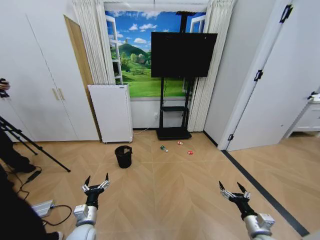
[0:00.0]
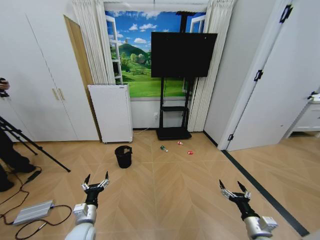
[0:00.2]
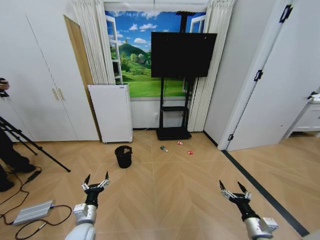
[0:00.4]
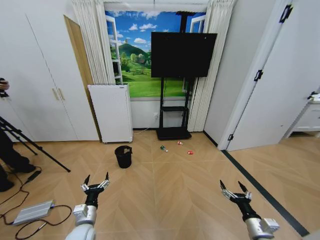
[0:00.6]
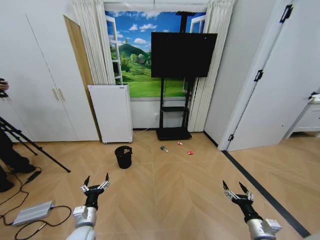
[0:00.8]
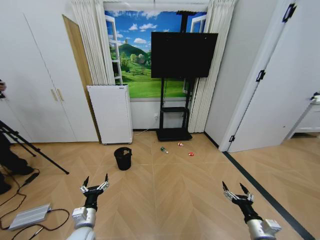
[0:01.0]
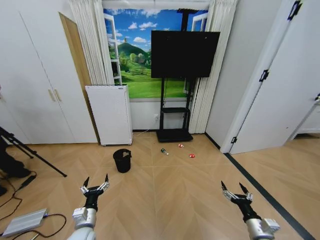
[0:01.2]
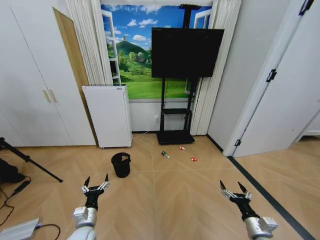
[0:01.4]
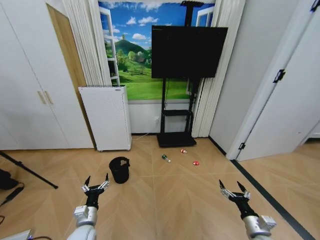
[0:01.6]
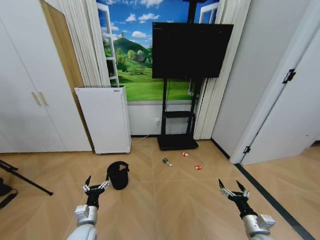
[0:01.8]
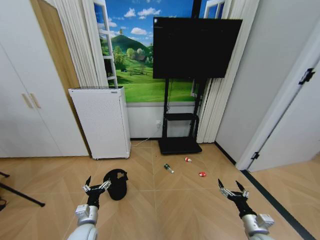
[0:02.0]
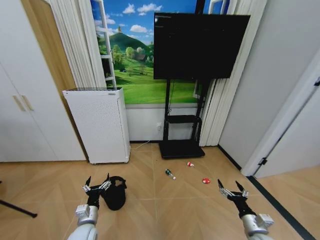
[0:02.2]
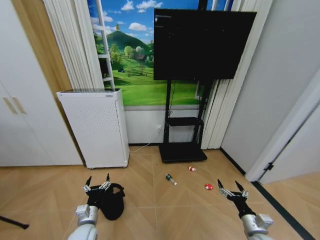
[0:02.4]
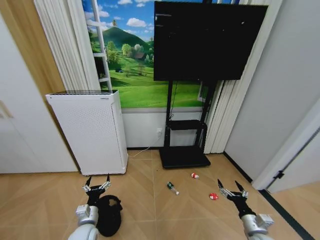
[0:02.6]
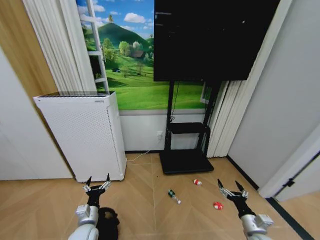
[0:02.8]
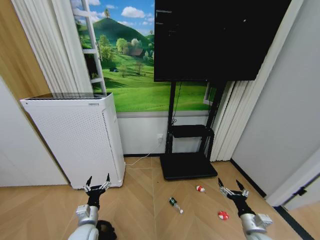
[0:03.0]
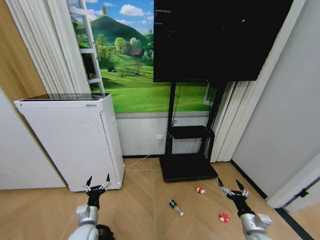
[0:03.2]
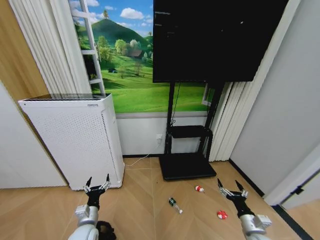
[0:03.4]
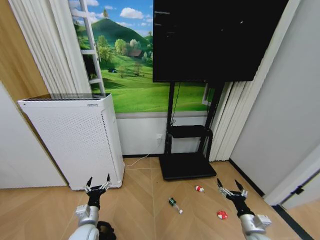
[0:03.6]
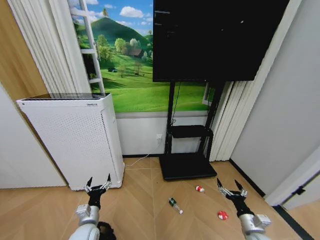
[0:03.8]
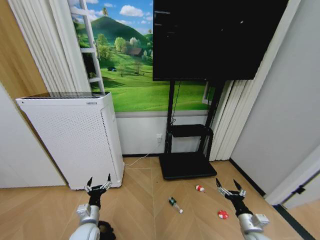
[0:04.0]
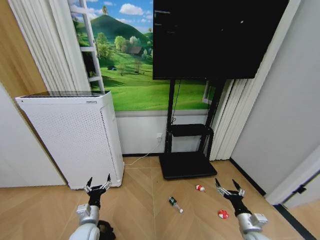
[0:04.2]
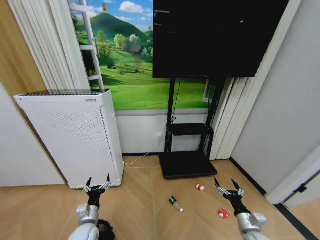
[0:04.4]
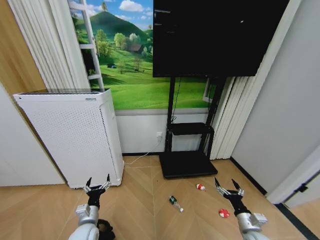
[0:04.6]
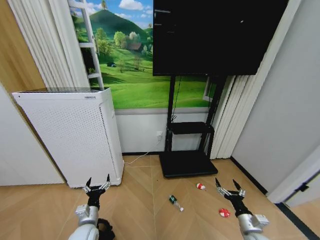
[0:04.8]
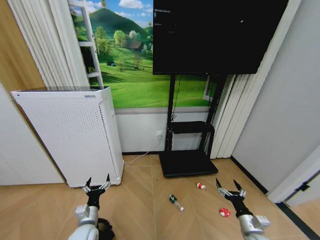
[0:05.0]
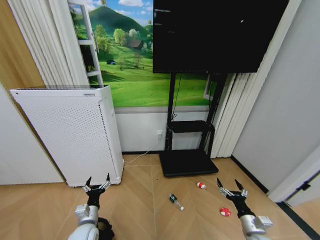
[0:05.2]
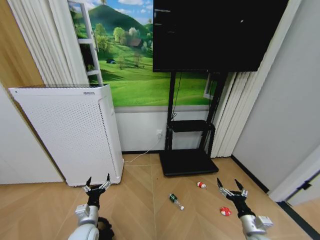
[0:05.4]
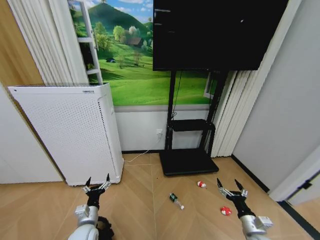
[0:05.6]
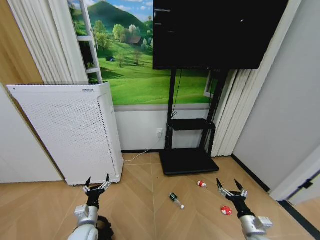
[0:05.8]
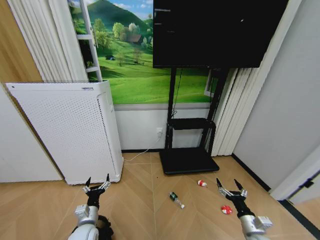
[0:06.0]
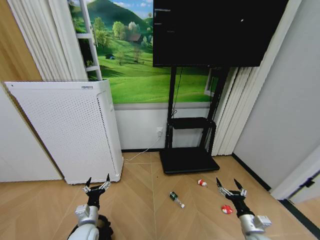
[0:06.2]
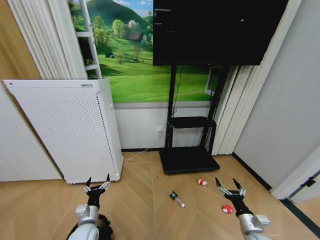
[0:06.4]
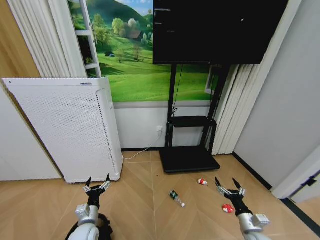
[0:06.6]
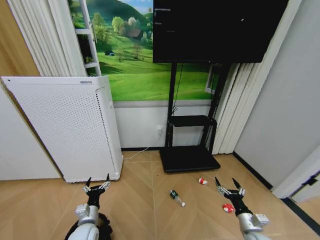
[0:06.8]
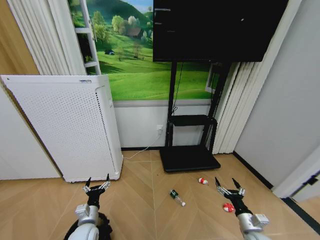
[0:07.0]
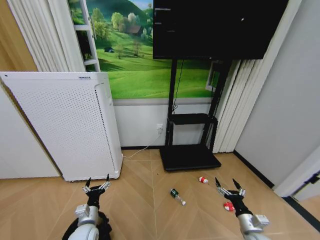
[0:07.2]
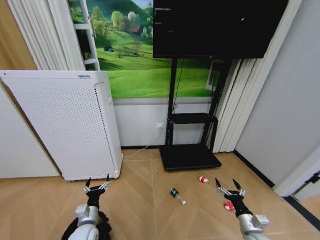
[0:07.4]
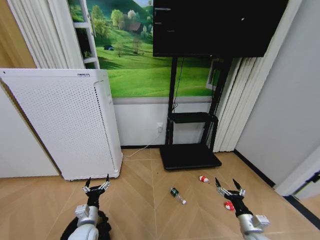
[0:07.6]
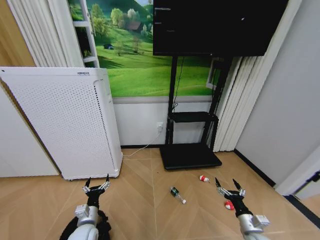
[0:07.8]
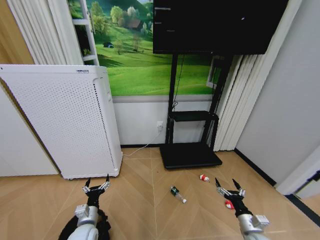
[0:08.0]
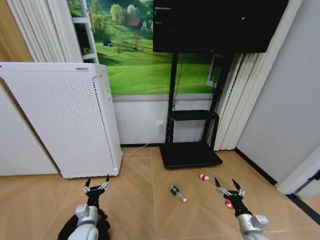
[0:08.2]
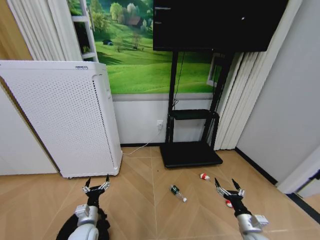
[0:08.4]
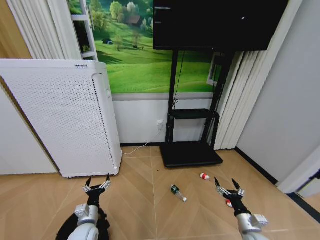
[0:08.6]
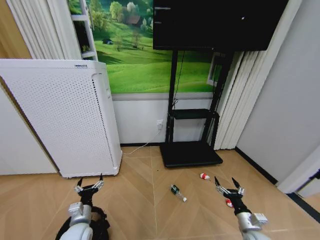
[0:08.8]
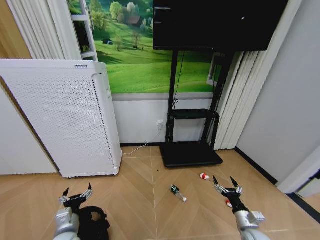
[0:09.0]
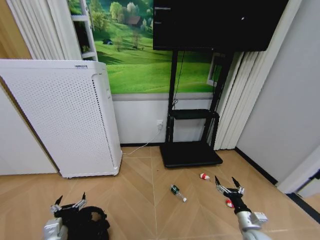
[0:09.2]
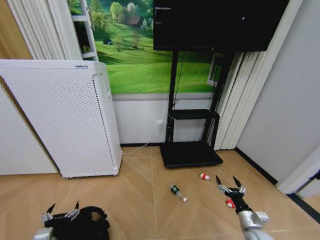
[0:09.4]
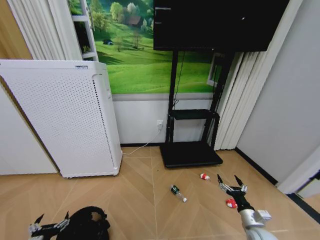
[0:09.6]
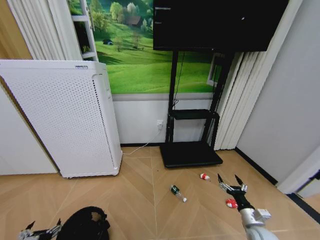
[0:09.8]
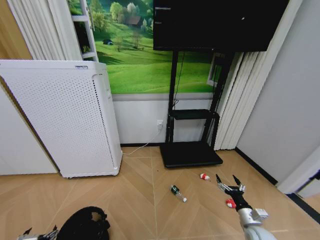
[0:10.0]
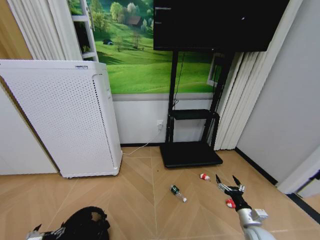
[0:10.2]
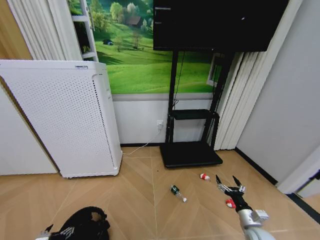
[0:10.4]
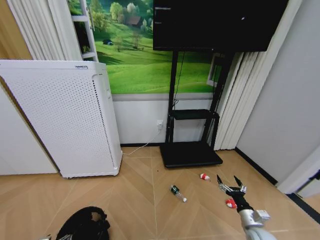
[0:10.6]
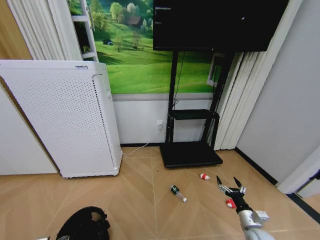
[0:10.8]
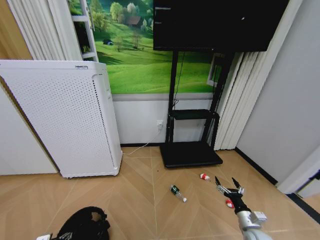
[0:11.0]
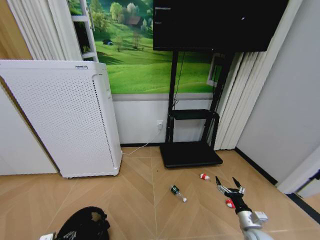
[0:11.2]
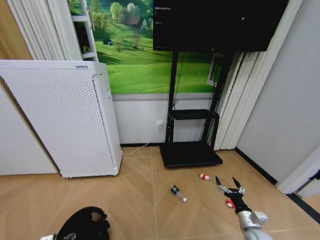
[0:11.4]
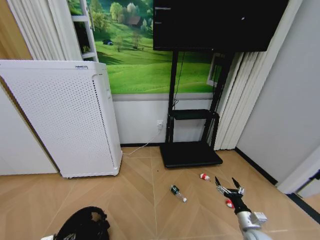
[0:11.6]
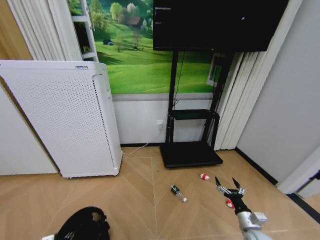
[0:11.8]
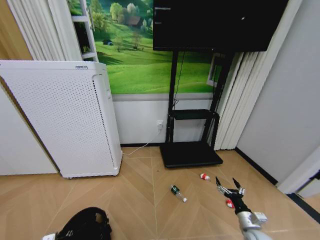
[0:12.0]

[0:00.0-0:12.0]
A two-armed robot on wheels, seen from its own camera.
Task of the whole recording: Pick up the trash bin and place the garbage on the floor into it.
0:03.0 to 0:07.6: Both grippers stay put.
0:07.6 to 0:09.0: The left gripper shifts by some 5 cm.
0:09.0 to 0:10.4: The left gripper goes roughly 10 cm to the left and backward.

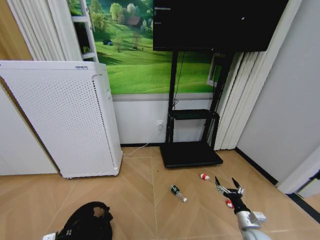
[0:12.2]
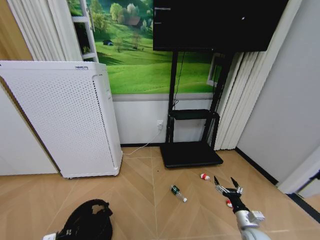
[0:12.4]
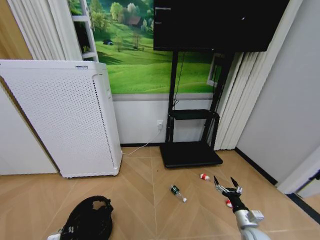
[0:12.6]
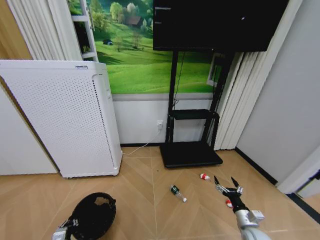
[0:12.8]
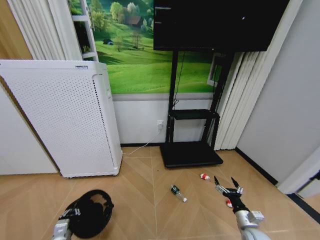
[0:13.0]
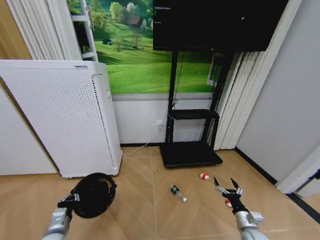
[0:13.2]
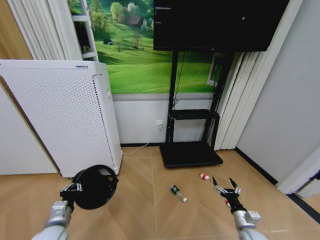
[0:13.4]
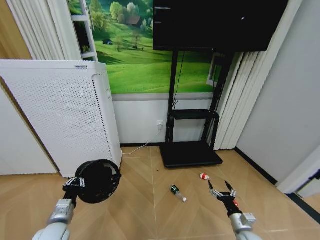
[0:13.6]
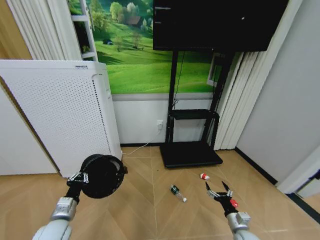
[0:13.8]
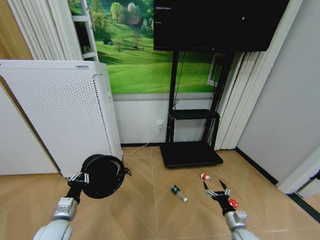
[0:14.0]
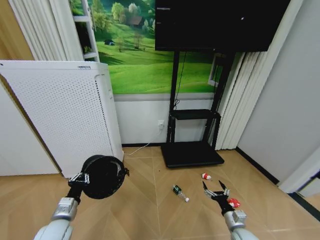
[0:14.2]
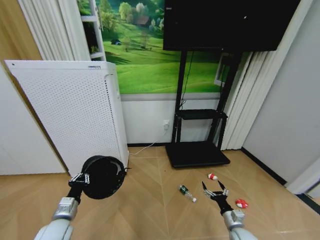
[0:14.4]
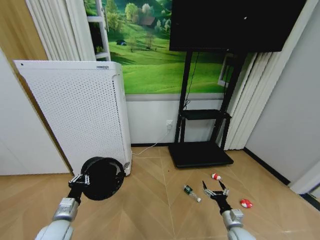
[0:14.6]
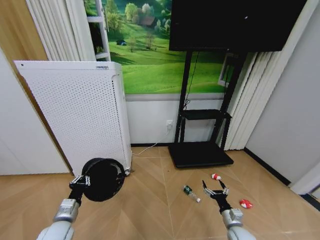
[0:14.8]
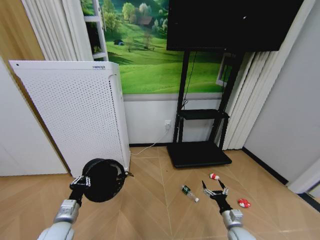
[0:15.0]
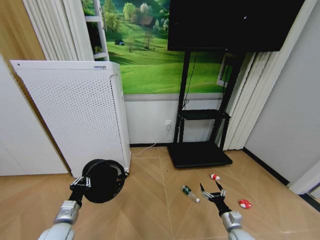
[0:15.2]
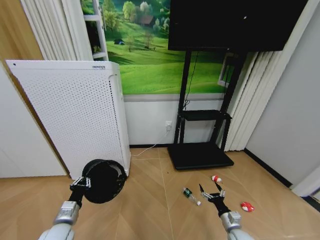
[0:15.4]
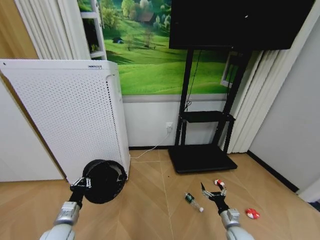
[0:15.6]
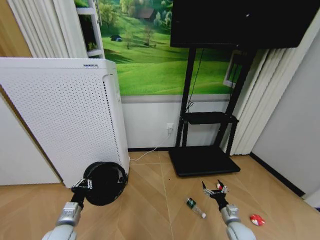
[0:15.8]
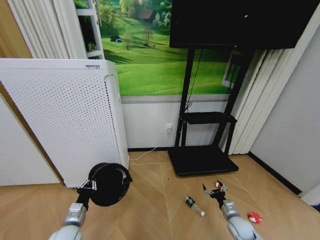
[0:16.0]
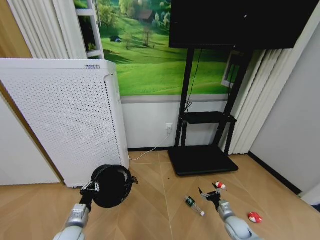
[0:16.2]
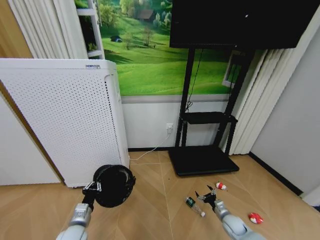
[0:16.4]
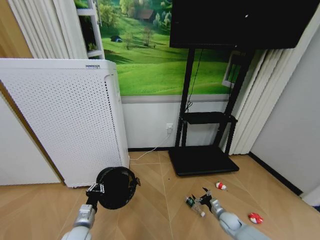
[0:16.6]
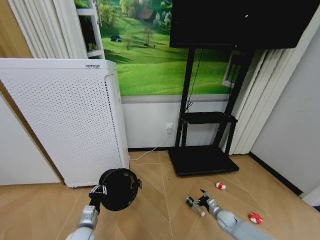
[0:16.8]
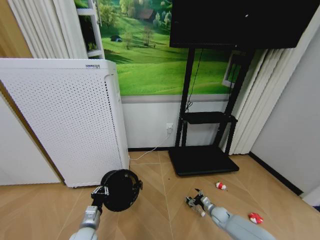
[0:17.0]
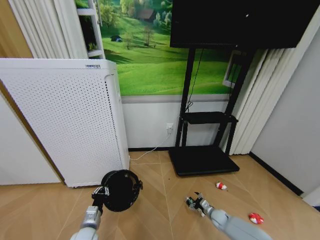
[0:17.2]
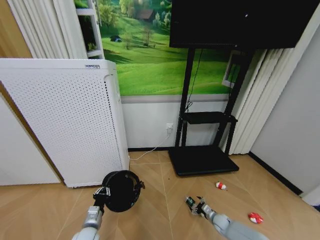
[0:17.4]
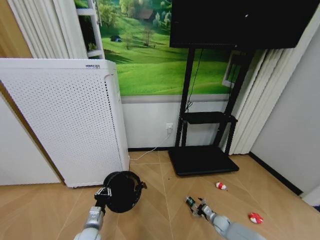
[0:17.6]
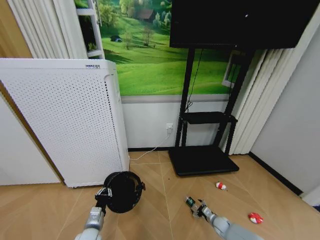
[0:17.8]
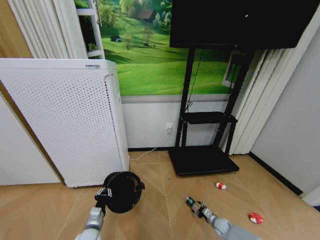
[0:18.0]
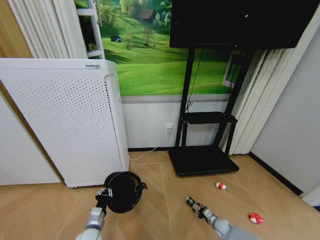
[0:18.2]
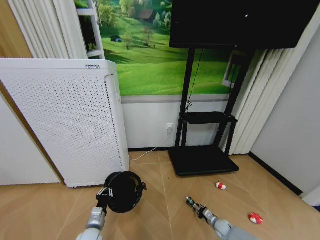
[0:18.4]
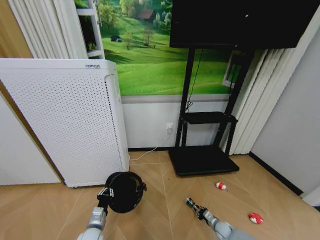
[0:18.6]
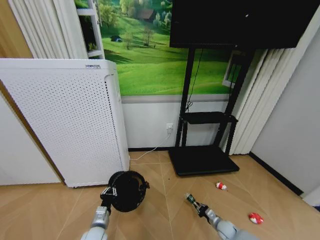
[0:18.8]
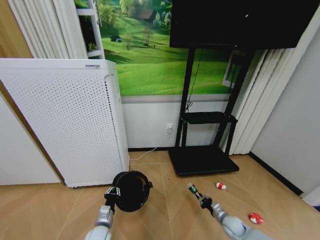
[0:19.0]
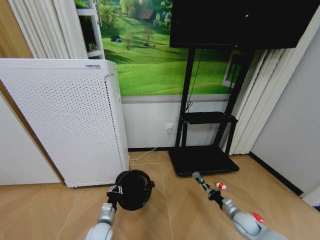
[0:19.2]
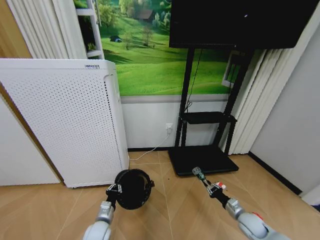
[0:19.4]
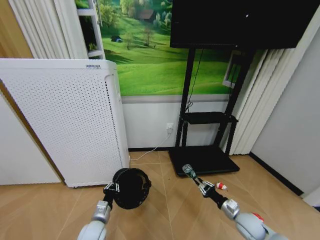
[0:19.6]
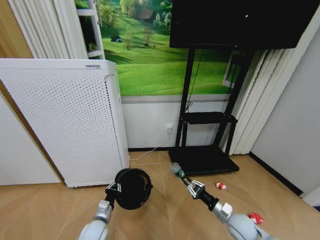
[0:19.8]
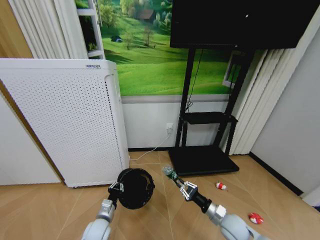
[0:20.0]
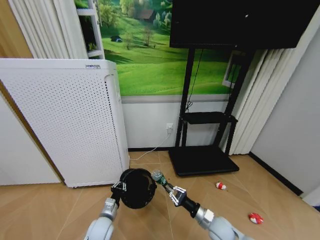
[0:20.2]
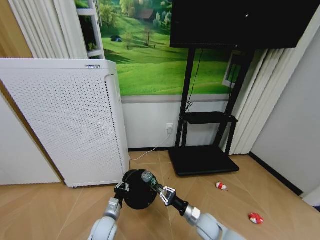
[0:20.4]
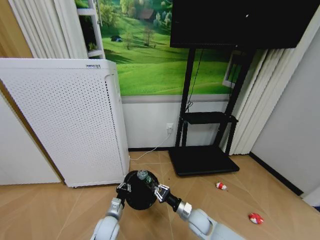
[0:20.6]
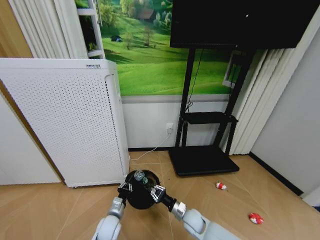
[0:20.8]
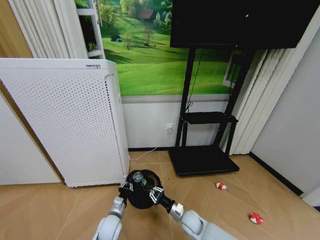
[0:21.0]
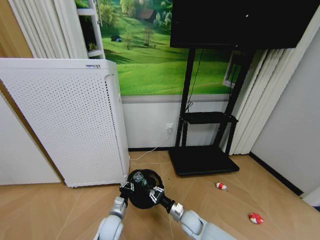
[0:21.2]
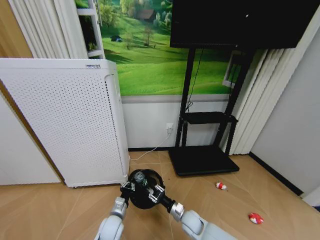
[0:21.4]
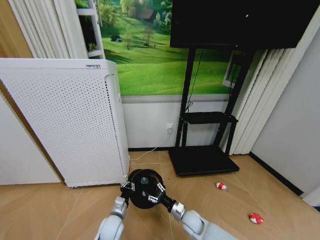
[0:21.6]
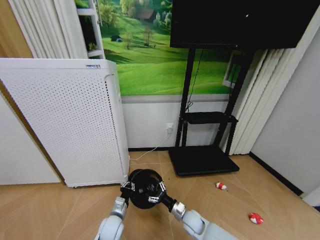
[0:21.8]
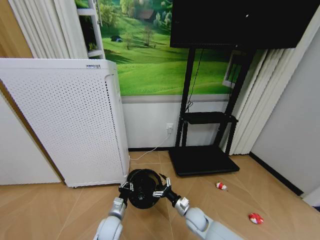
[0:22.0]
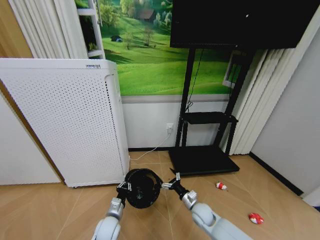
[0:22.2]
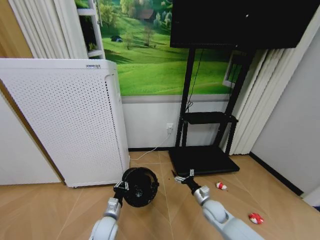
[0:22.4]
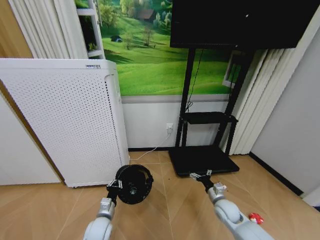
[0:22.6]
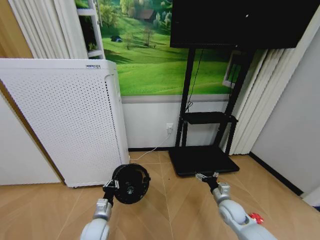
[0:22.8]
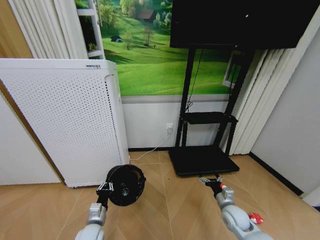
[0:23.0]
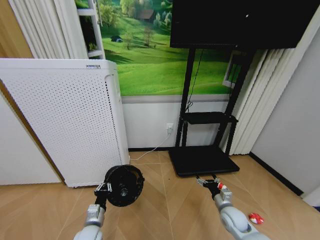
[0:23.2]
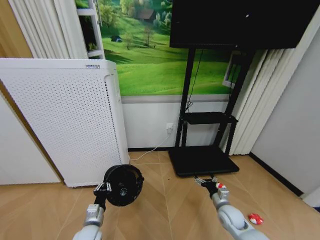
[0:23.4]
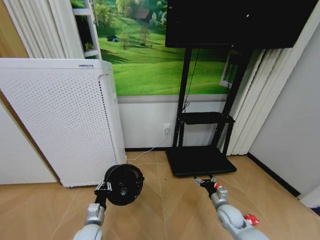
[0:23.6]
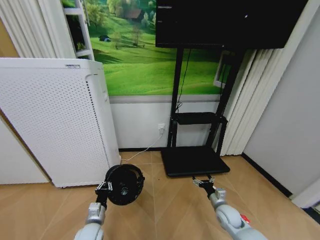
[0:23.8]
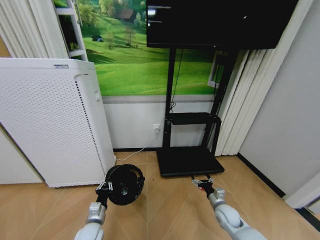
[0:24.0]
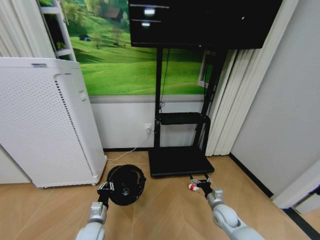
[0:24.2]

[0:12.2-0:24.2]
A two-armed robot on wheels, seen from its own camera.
Task of the whole recording: Pick up the trash bin and place the garbage on the floor into it.
0:12.2 to 0:13.8: The left gripper heads upward, forward and to the right, covering approximately 15 cm.
0:15.2 to 0:16.6: The left gripper changes place by some 5 cm, while the right gripper travels forward and downward by roughly 10 cm.
0:16.6 to 0:18.2: The right gripper goes approximately 10 cm downward, and closes.
0:18.2 to 0:19.8: The right gripper moves upward, about 20 cm, and closes.
0:19.8 to 0:21.2: The right gripper moves to the left and downward, about 20 cm. The left gripper travels to the right by about 5 cm.
0:21.2 to 0:22.6: The right gripper moves to the right and upward, roughly 15 cm, and opens its fingers.
